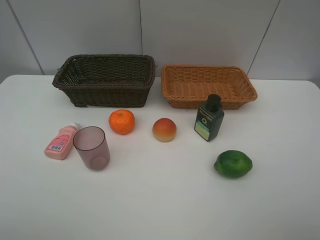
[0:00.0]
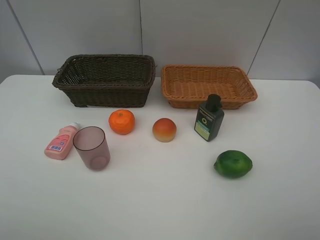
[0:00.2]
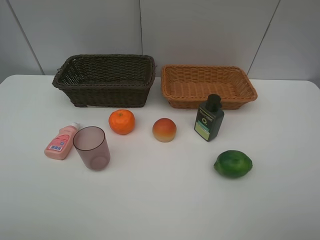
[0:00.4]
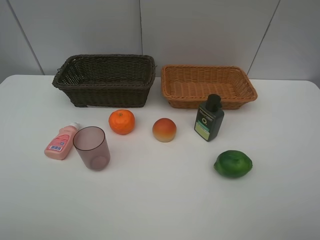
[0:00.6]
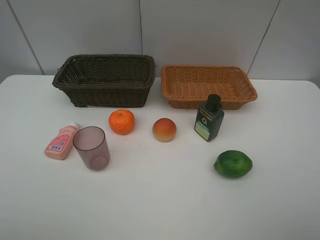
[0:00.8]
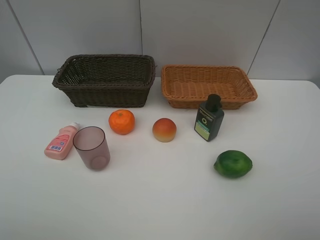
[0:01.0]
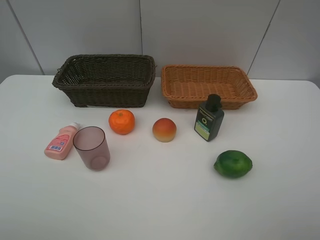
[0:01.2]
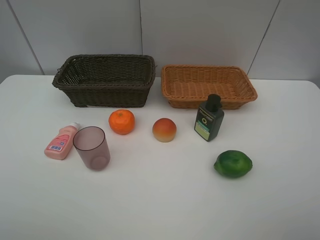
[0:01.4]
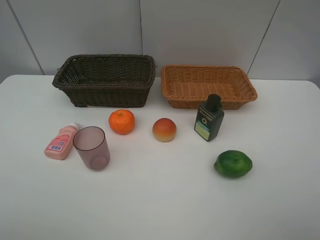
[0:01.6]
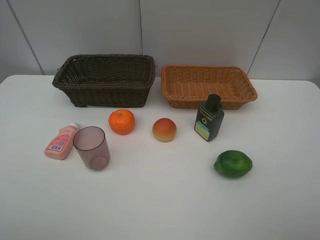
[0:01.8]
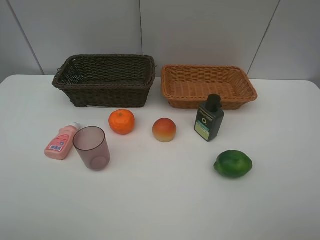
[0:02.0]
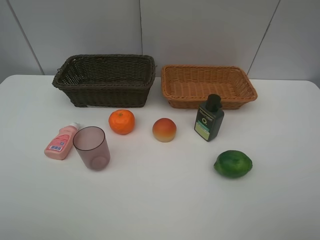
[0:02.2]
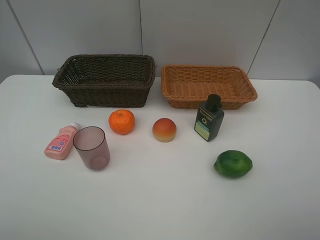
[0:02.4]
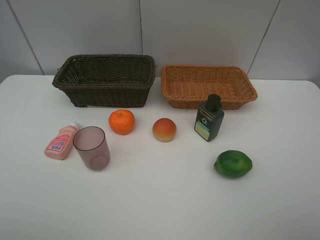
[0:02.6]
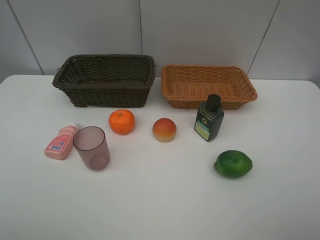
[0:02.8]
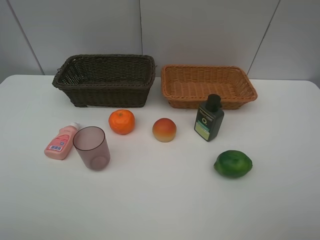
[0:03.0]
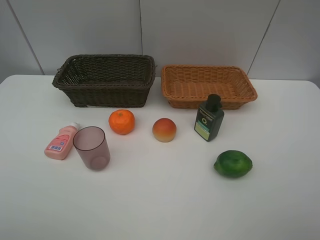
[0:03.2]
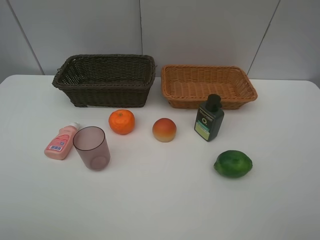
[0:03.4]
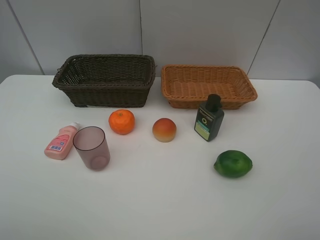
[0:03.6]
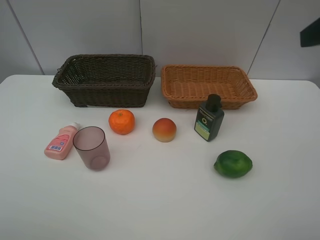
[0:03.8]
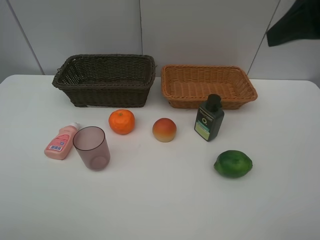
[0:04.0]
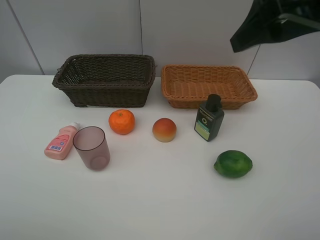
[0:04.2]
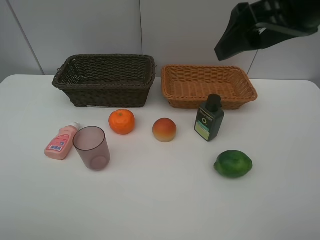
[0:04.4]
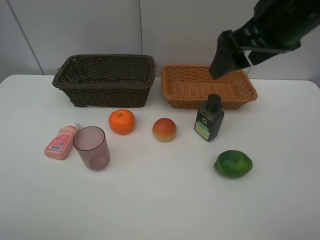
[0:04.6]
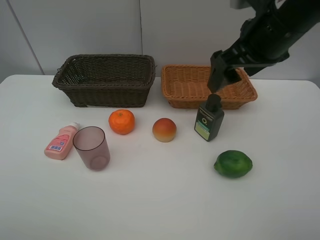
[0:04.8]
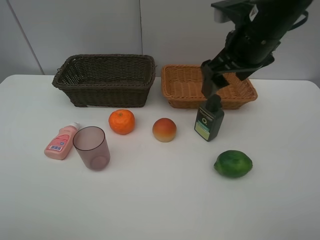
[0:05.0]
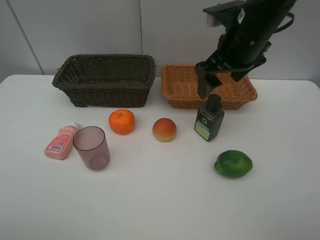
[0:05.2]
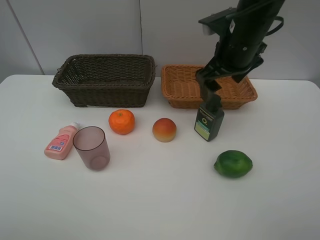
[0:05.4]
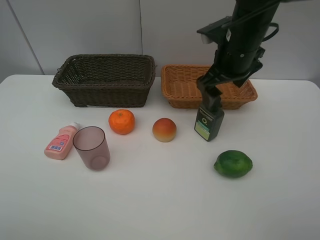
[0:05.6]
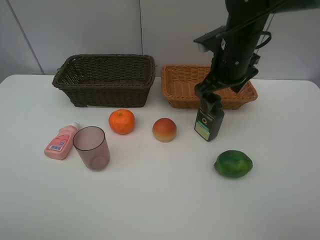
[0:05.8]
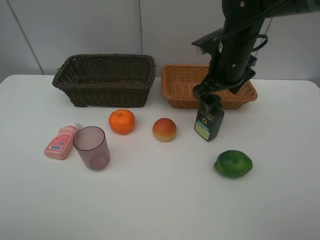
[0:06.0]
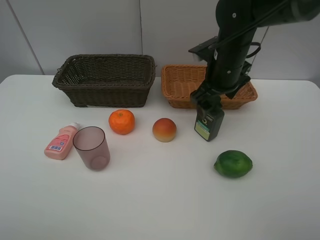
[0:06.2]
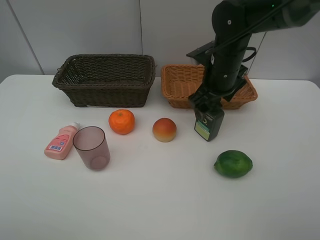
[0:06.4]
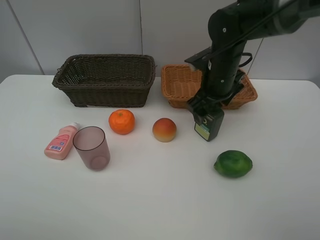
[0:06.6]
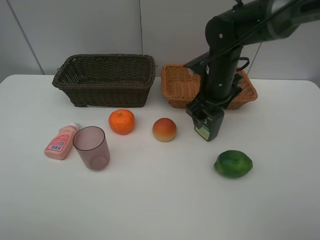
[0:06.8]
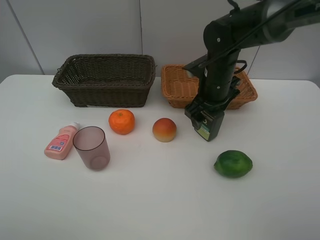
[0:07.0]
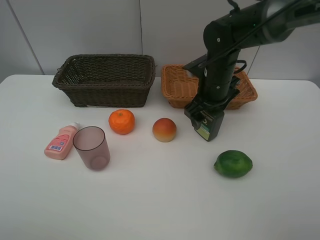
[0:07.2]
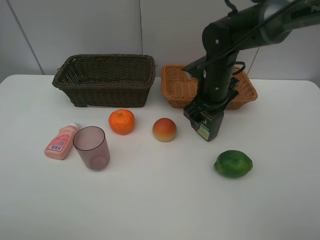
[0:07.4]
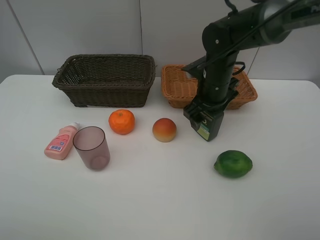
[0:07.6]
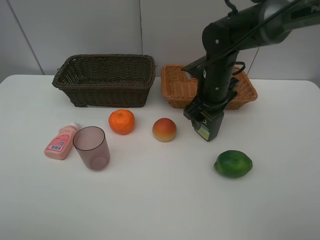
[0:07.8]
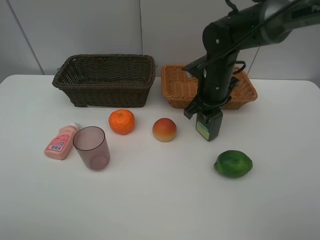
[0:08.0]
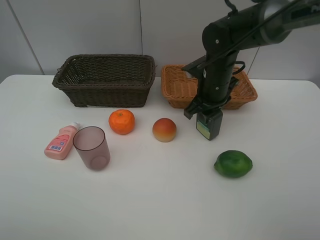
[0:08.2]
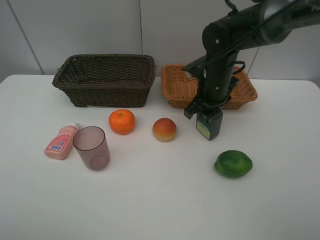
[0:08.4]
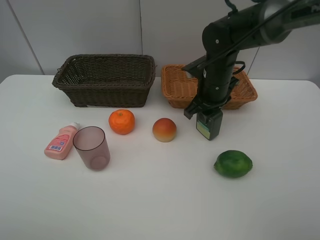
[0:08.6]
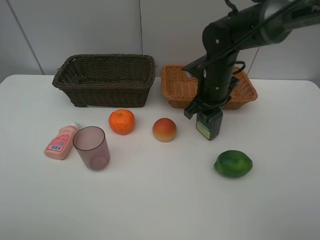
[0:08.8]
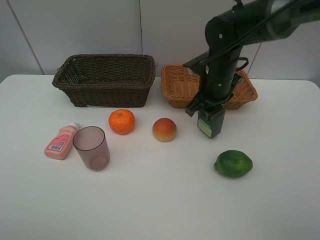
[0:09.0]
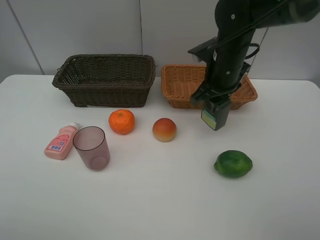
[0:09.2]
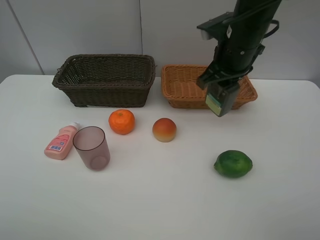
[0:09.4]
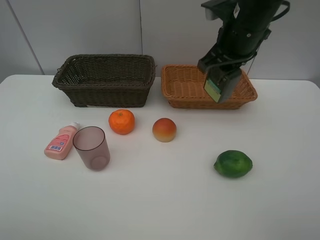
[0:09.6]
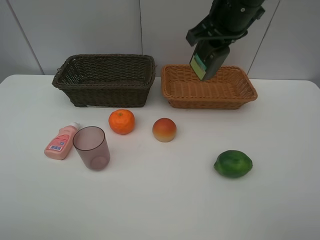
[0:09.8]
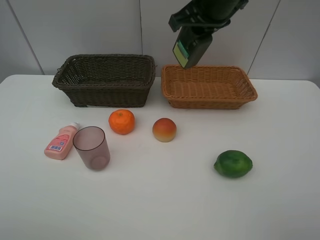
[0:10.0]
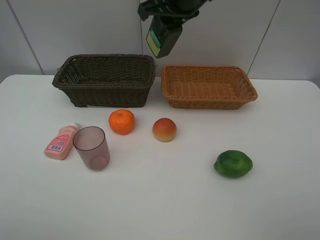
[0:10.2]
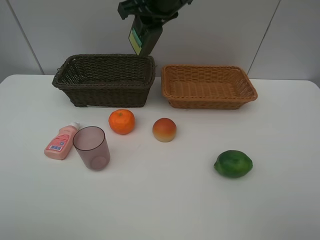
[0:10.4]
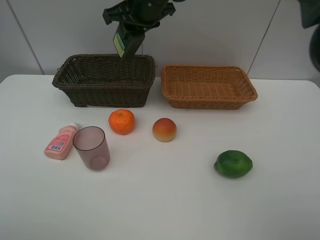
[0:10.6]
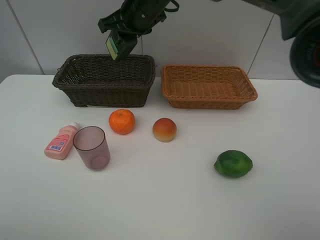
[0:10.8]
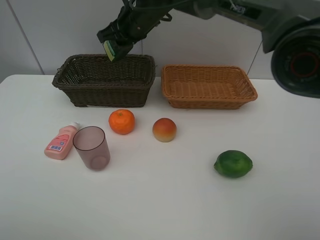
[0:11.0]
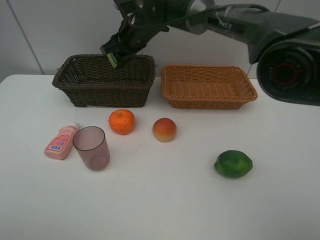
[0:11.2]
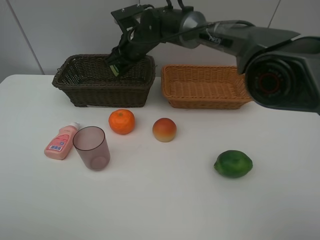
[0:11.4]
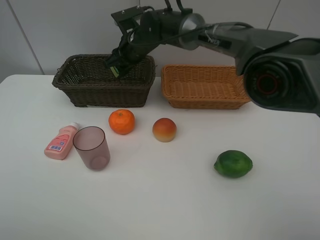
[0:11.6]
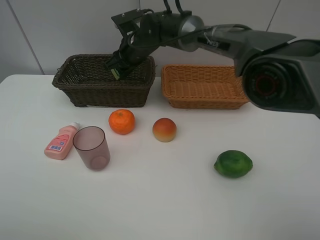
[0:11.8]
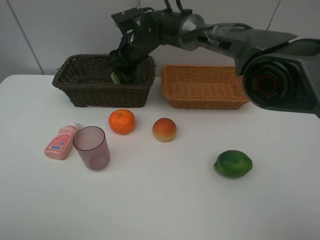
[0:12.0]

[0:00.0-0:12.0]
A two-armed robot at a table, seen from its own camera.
Task of the whole recording: place multiple objects separately in different baskets.
0:00.0 to 0:03.0: Neither gripper changes place.
0:03.0 to 0:04.4: The right gripper goes approximately 25 cm forward and to the left.
0:04.4 to 0:06.0: The right gripper goes roughly 20 cm downward and forward.
0:06.0 to 0:07.6: The right gripper travels downward by approximately 5 cm.
0:07.6 to 0:09.0: The right gripper closes.
0:09.0 to 0:10.4: The right gripper travels upward and to the left by some 20 cm.
0:10.4 to 0:12.0: The right gripper moves downward, forward and to the left, approximately 15 cm, and opens.

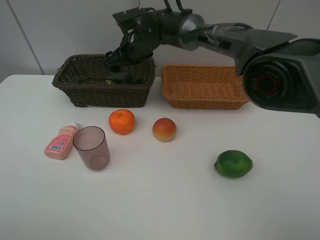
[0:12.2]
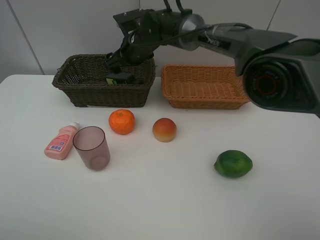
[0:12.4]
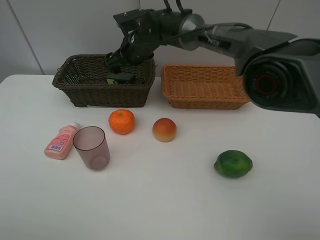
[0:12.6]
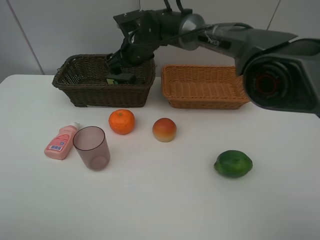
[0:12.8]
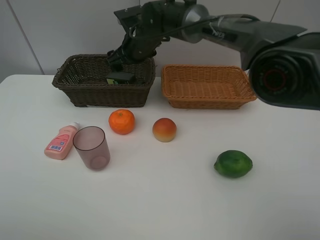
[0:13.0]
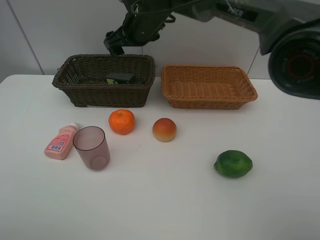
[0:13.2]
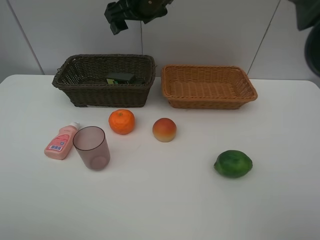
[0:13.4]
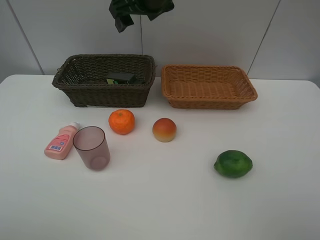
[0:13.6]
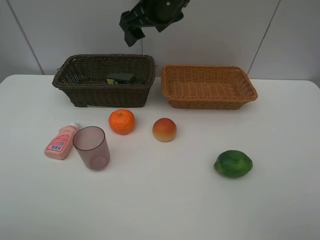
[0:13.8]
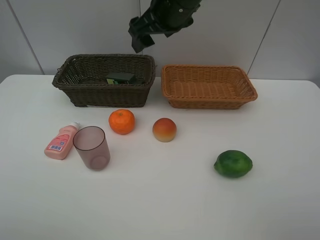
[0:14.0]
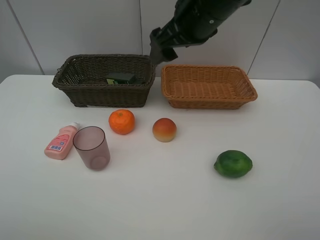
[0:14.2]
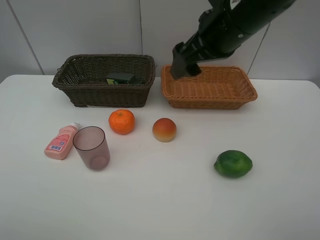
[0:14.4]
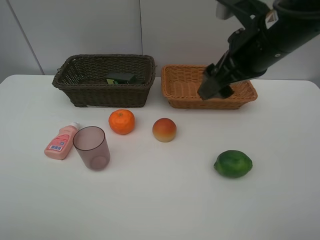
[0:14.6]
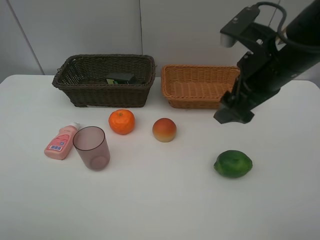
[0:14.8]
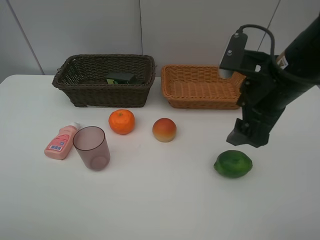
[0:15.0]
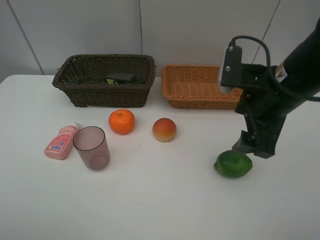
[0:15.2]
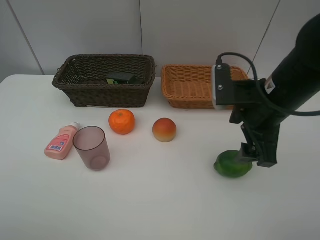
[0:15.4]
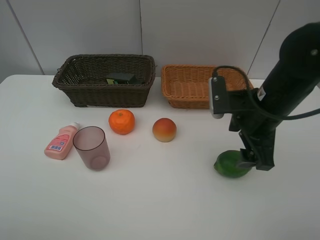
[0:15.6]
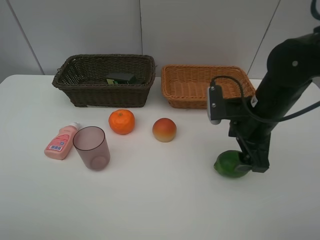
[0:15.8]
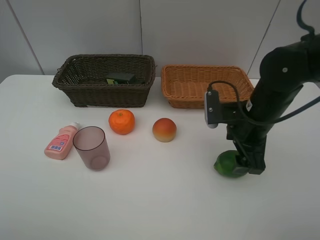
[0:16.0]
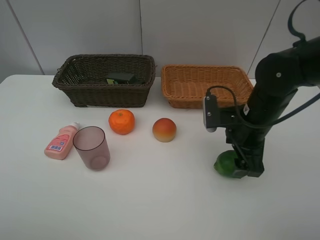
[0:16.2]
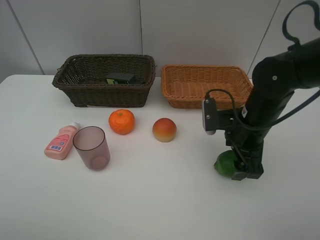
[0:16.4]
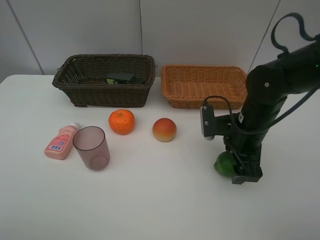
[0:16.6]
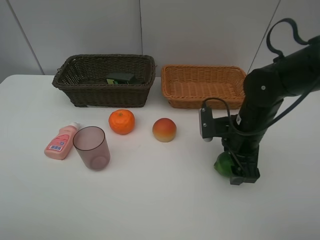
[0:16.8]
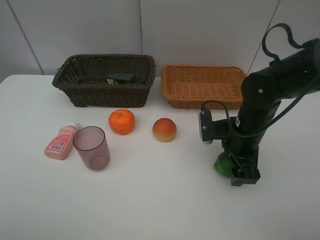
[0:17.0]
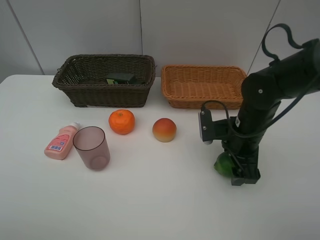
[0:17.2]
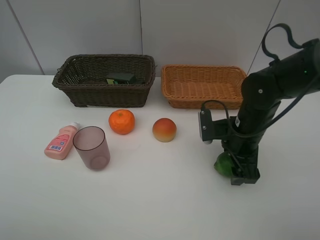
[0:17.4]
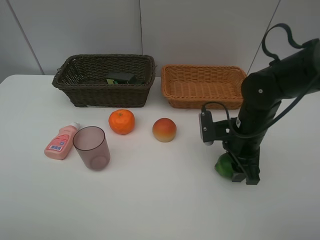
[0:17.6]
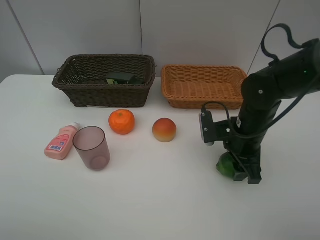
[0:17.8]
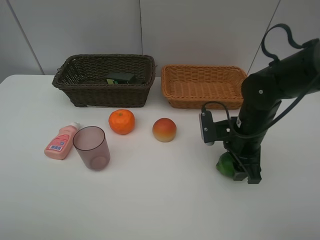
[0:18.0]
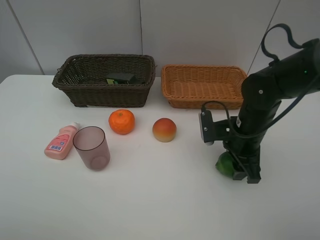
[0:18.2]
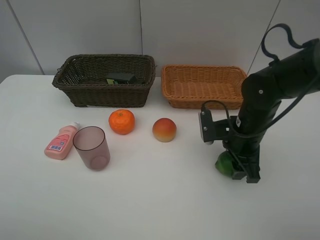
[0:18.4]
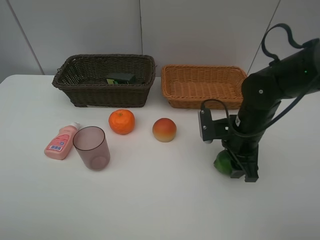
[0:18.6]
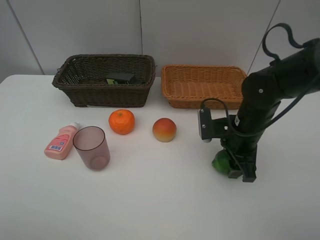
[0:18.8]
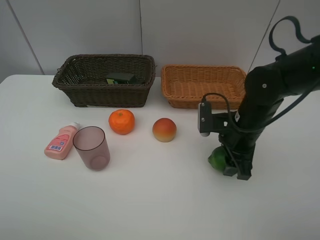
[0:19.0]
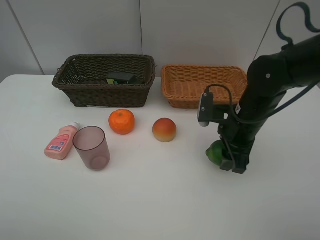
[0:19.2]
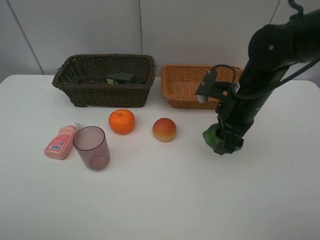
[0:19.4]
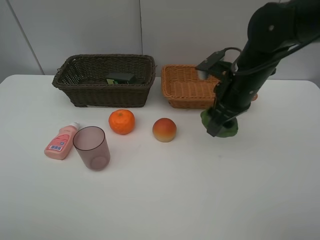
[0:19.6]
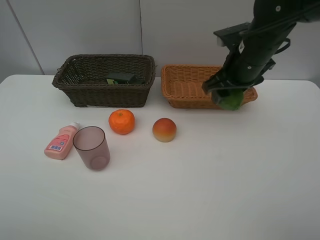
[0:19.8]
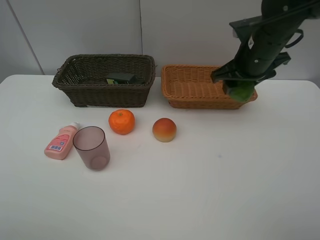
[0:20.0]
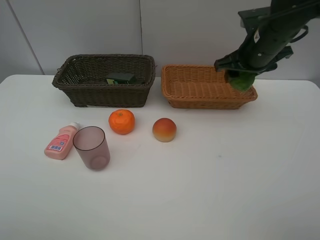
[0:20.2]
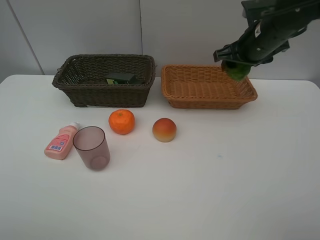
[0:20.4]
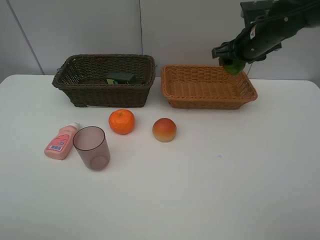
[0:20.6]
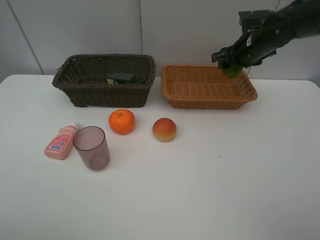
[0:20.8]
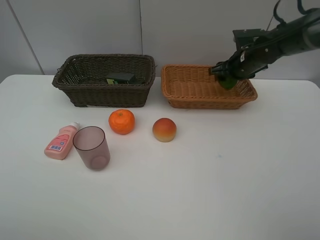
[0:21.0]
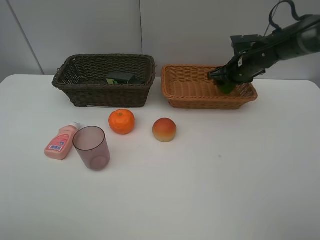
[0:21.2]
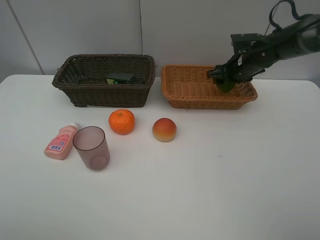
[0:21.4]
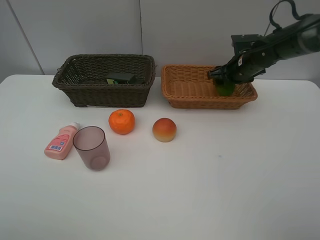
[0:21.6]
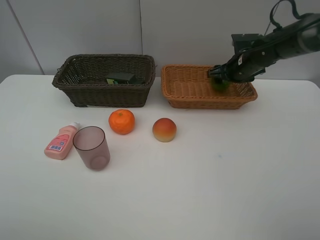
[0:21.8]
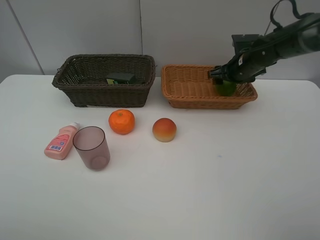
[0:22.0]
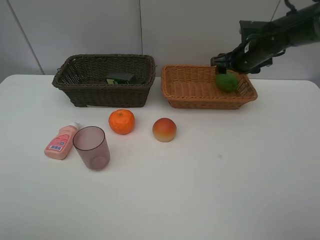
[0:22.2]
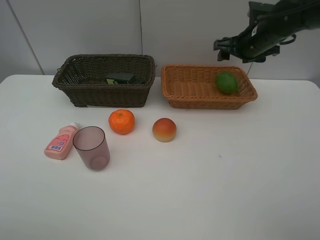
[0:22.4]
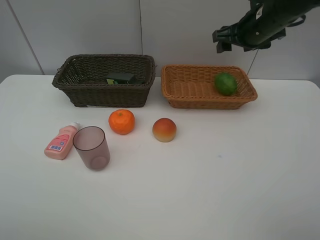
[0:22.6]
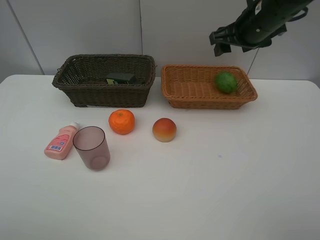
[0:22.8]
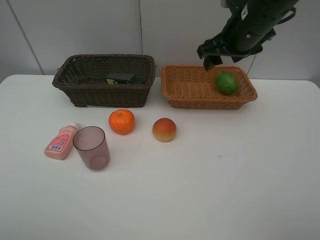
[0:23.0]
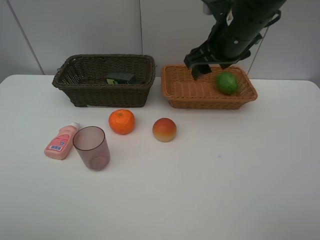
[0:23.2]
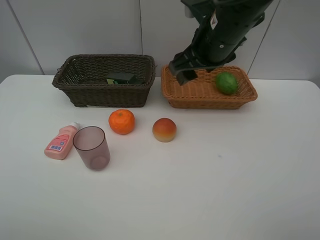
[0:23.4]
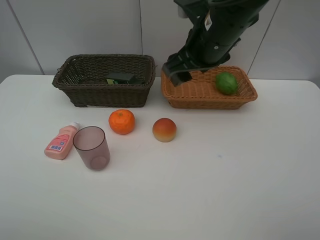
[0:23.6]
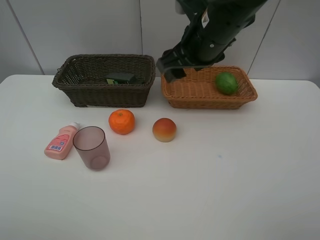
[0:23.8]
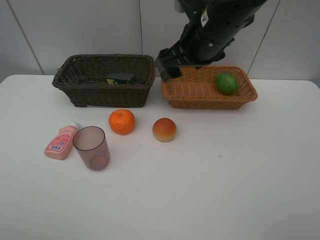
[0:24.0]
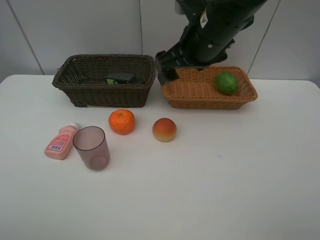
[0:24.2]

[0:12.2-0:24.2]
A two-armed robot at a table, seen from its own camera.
Task of the whole recording: place multiple objects separately in different baskets.
0:12.2 to 0:13.8: The right gripper moves upward, backward and to the right, approximately 15 cm.
0:13.8 to 0:15.2: The right gripper travels backward, to the right and downward by some 25 cm.
0:15.2 to 0:16.6: The right gripper is displaced downward by about 10 cm.
0:16.6 to 0:18.2: The right gripper closes up.
0:18.2 to 0:19.8: The right gripper heads upward and forward, covering about 15 cm.
0:19.8 to 0:21.2: The right gripper moves forward, downward and to the right, some 15 cm.
0:21.2 to 0:22.6: The right gripper goes approximately 15 cm upward and backward.
0:22.6 to 0:24.2: The right gripper travels to the left and backward by about 15 cm, and opens up.
